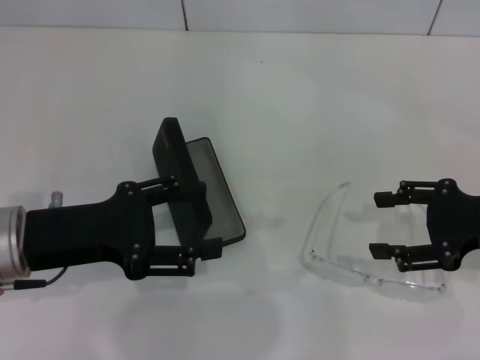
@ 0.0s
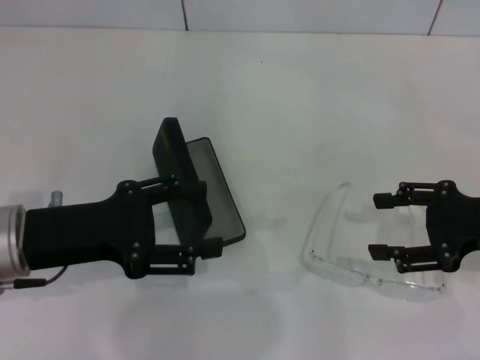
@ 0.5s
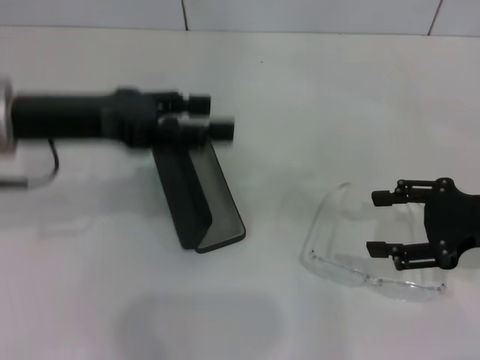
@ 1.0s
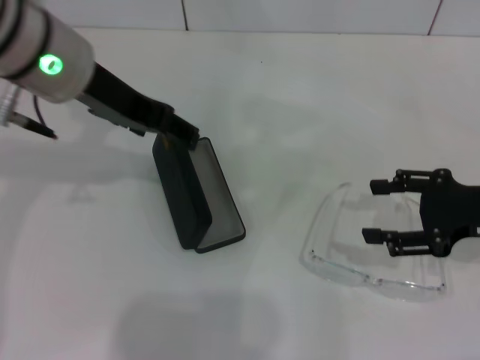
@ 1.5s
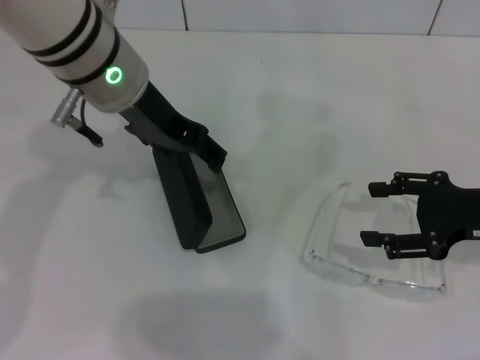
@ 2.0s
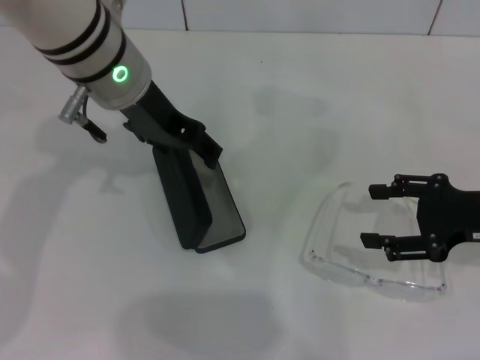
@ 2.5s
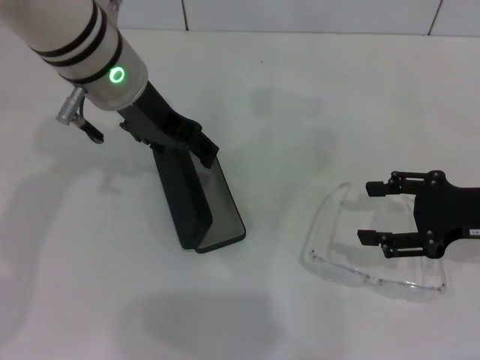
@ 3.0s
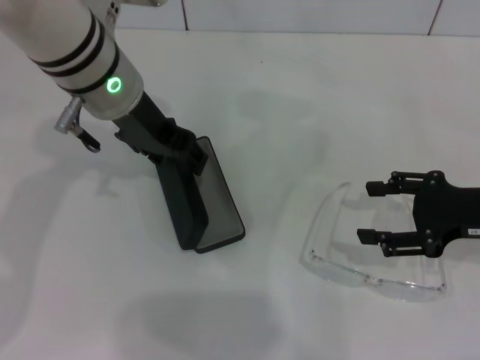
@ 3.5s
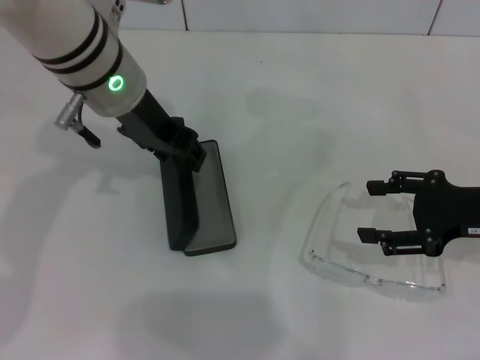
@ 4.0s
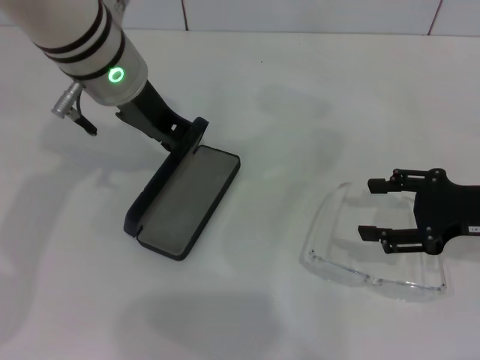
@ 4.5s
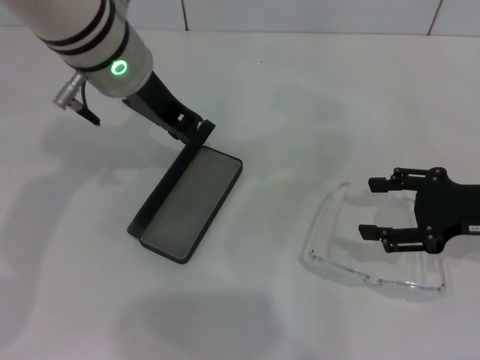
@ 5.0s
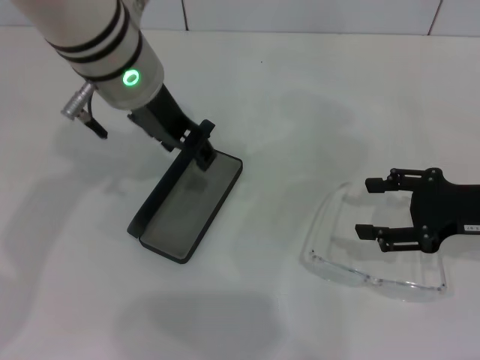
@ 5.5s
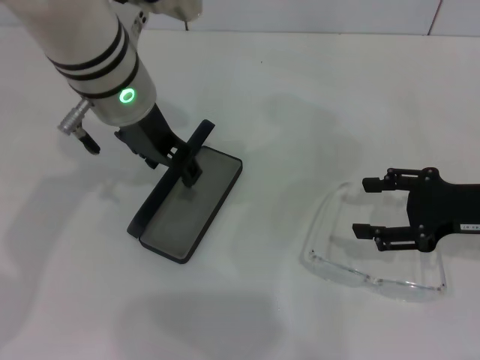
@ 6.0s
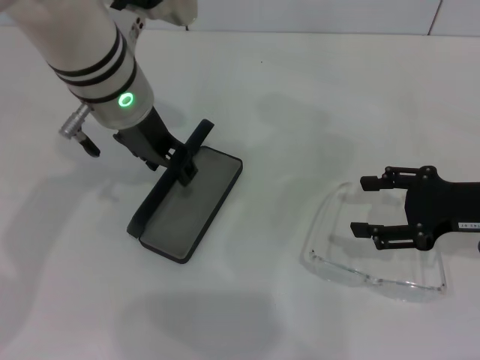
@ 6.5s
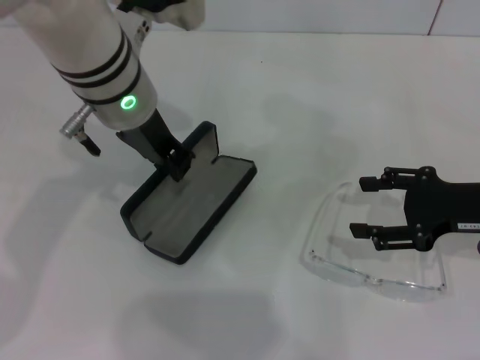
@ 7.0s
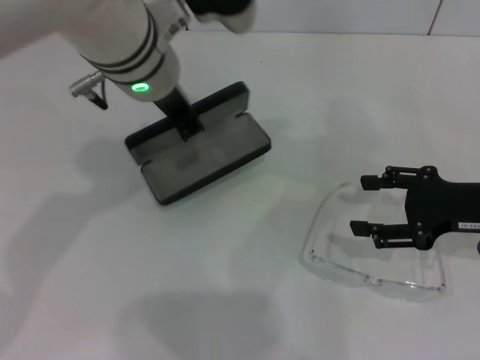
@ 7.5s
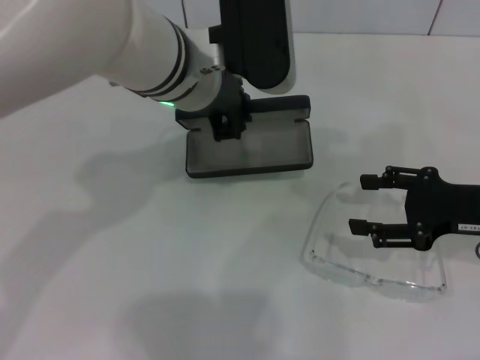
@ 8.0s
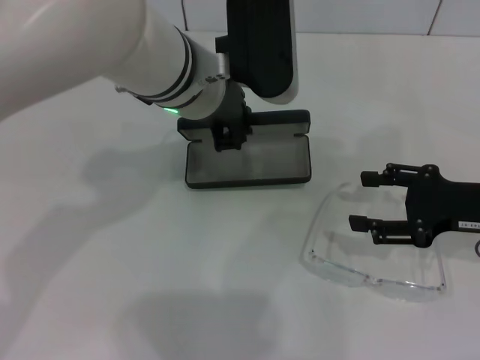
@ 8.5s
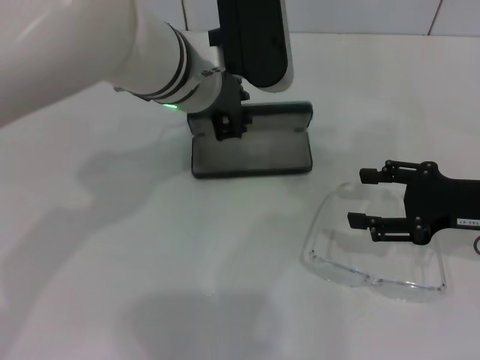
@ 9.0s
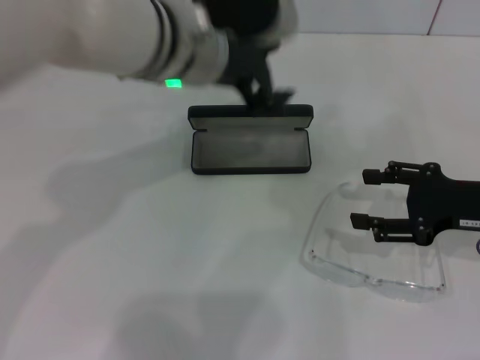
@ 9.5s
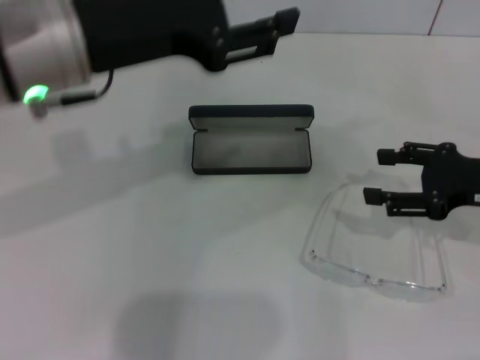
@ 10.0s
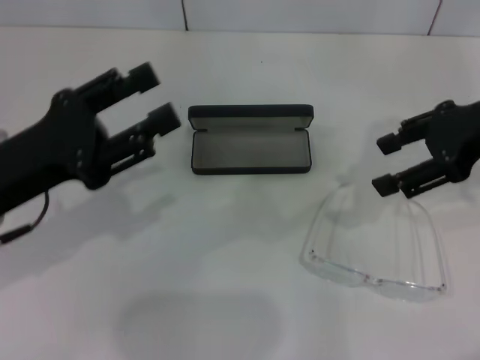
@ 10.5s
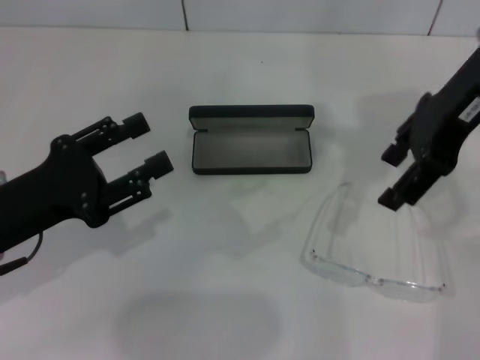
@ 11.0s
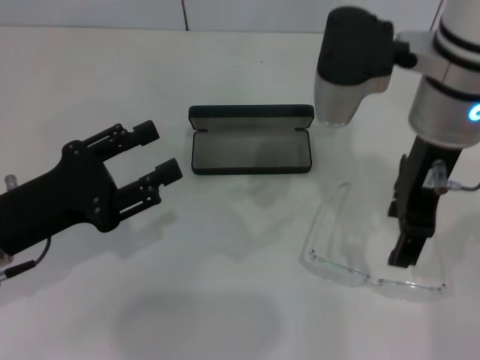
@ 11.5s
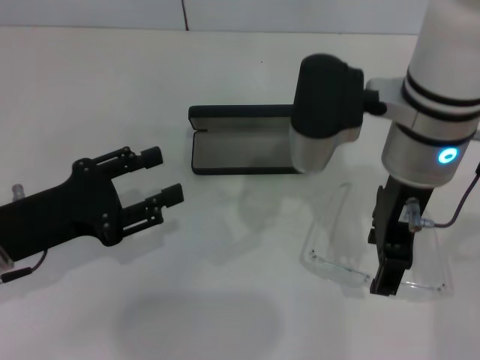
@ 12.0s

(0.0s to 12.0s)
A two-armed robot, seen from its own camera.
Step, 0.0s - 4.0s: Grab the glasses case with your left hand.
Step, 4.5s - 9.0s: Place the glasses case in the center of the table with your left hand.
0.0s - 2.0s: The left gripper travels forward, to the right and upward by some 20 cm.
2.0s - 4.0s: The grippers stay close to where they were, moving slightly.
4.0s - 6.0s: The left gripper closes, then opens again.
6.0s - 8.0s: The left gripper closes.
8.0s - 10.0s: The left gripper is displaced to the left and backward by about 10 cm, and opens up.
10.0s - 12.0s: The right gripper heads to the left and upward, covering about 20 cm. The left gripper moves downward, to the left and backward, some 20 cm.

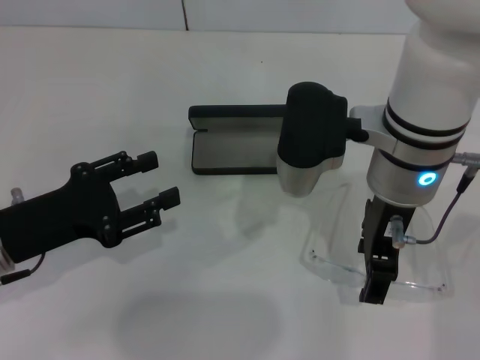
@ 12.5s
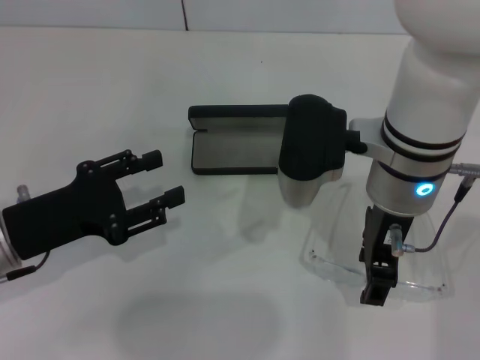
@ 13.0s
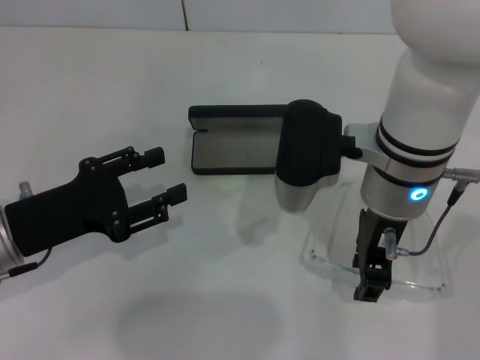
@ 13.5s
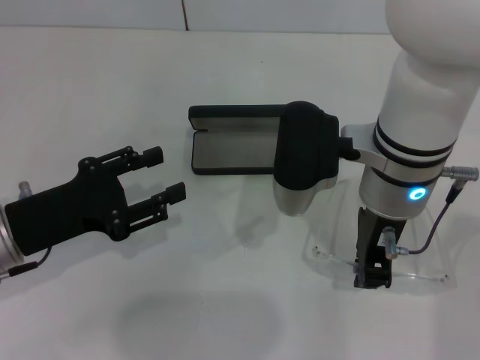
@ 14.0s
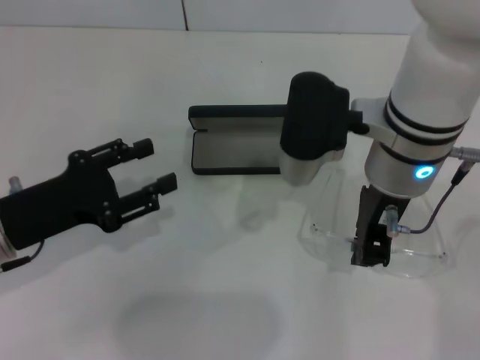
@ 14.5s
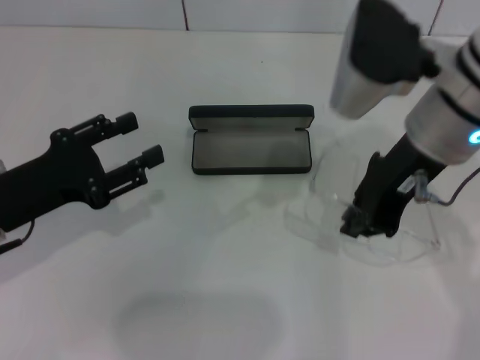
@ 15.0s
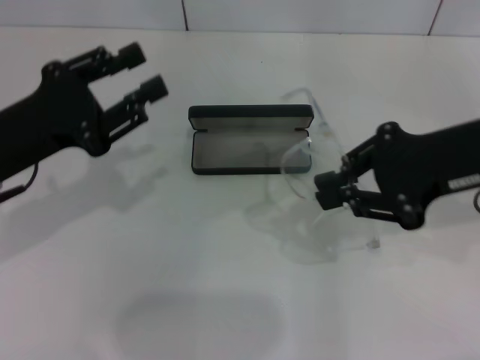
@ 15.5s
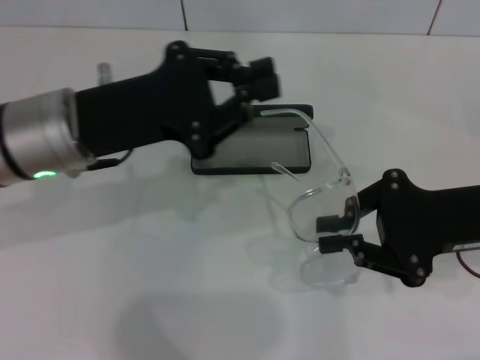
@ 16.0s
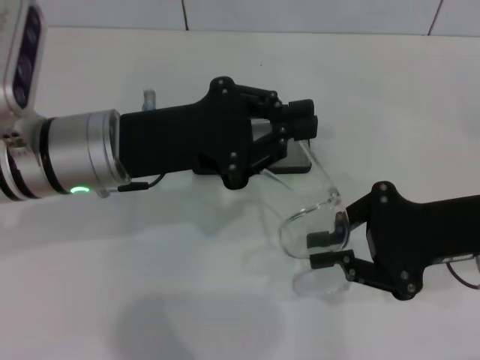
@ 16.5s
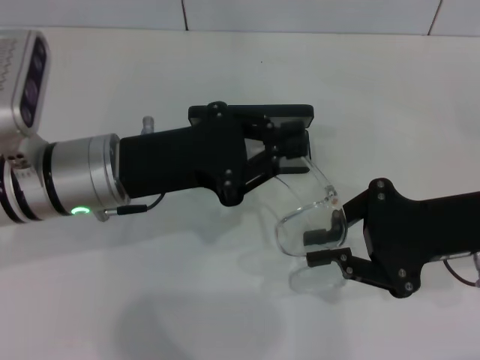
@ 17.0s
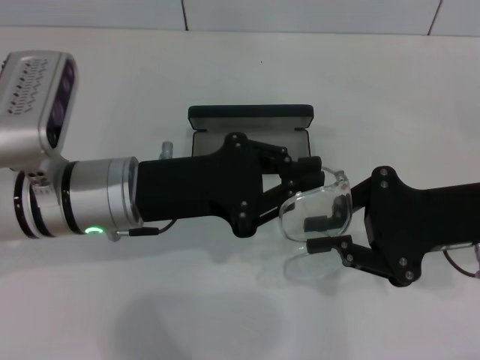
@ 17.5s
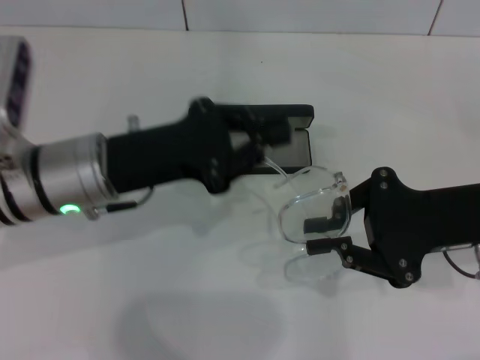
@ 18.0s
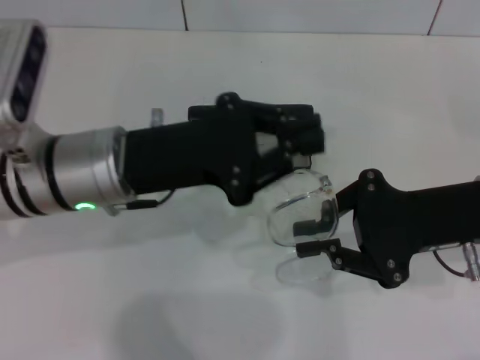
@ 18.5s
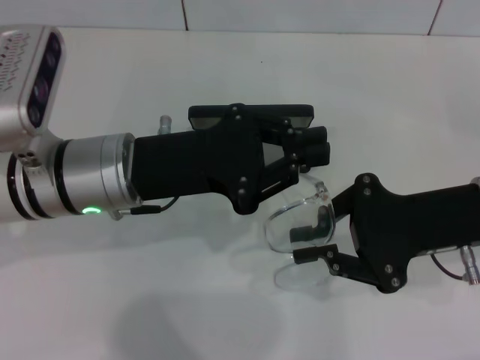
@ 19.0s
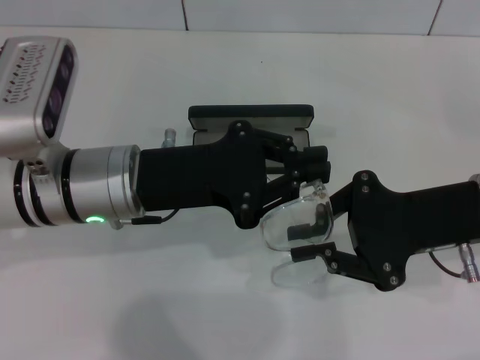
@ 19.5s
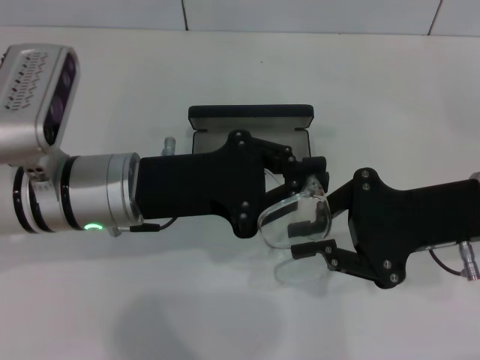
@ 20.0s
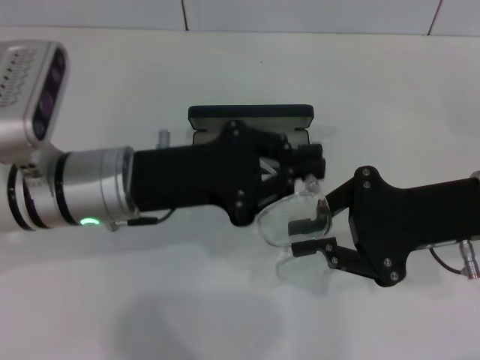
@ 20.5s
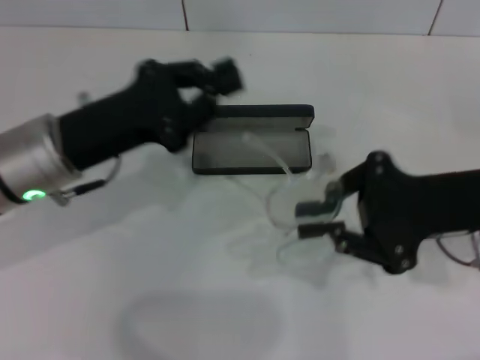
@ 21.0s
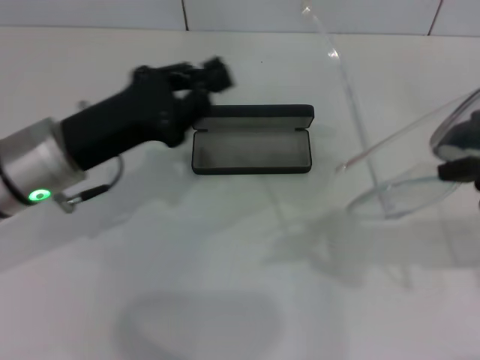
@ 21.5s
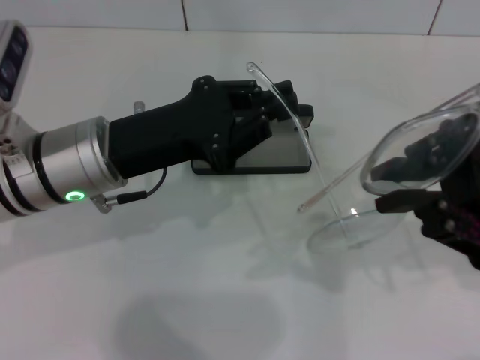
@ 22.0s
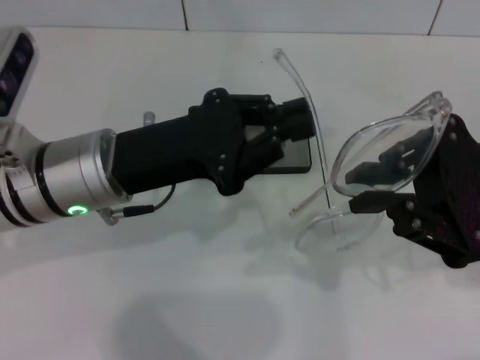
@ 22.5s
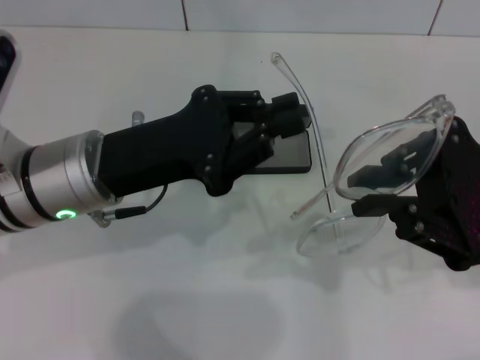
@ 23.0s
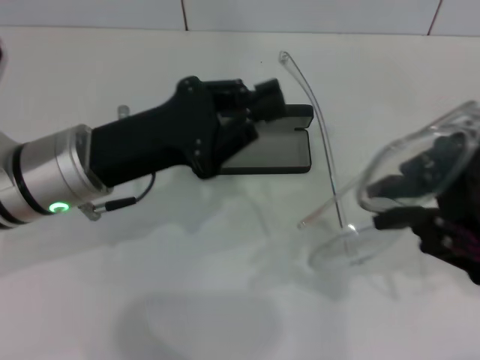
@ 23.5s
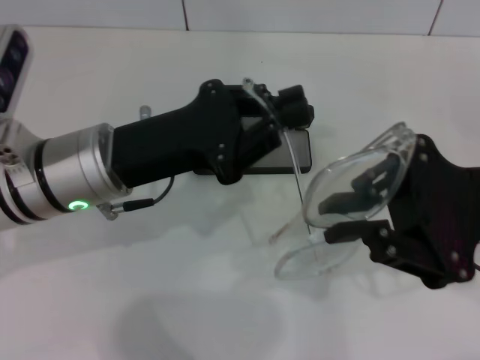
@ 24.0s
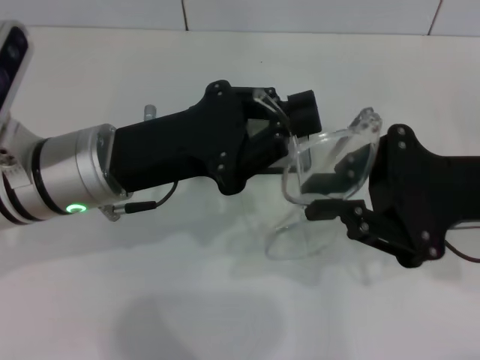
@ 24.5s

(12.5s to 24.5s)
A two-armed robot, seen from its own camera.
12.5s - 14.5s: The right gripper closes its fingers.
14.5s - 16.5s: The right gripper shifts approximately 15 cm to the right. Meanwhile the left gripper is displaced to the right, upward and forward by about 15 cm, and closes its fingers.
16.5s - 20.5s: The grippers move only a little.
22.5s - 24.5s: The grippers stay close to where they were, moving slightly.

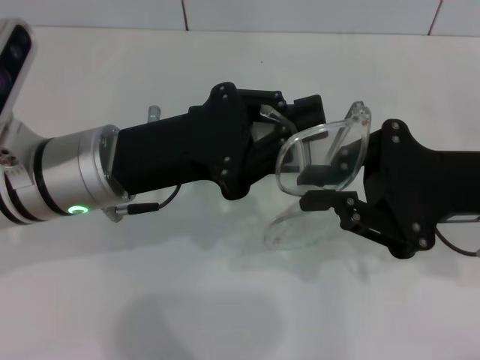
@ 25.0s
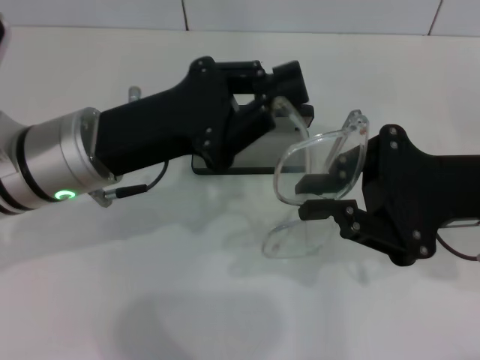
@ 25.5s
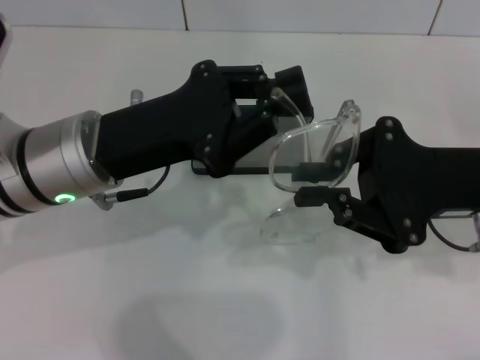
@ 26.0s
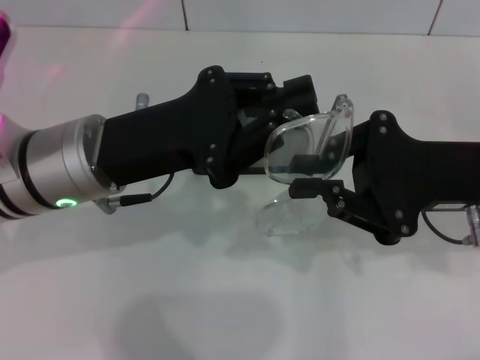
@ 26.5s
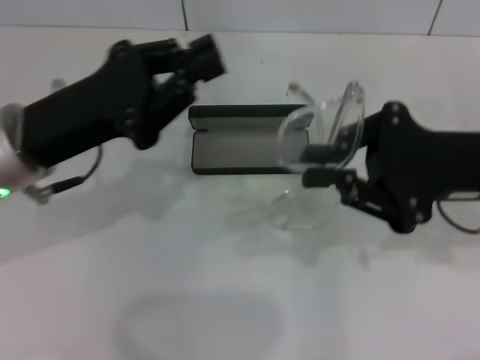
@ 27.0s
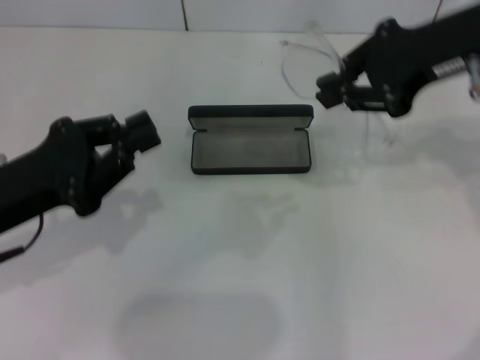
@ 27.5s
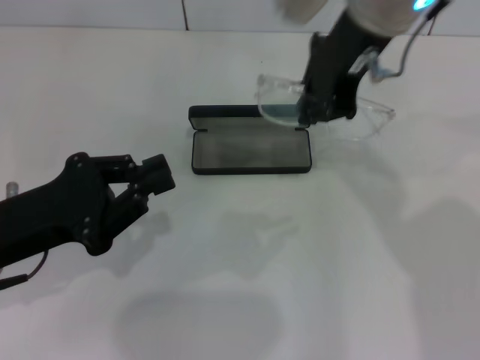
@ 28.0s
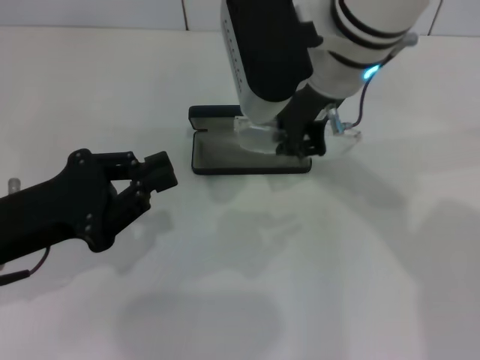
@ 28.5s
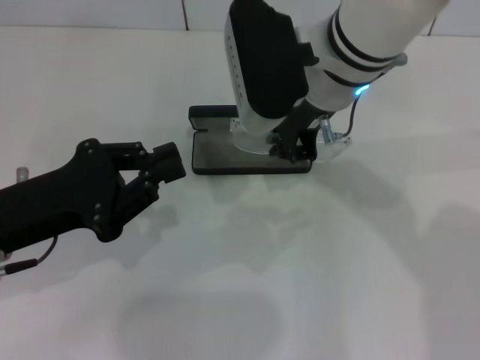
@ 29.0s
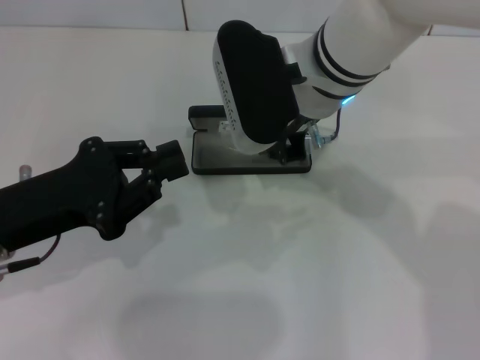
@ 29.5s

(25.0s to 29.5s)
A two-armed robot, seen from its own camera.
25.0s - 27.0s: The left gripper goes about 5 cm to the left.
27.0s - 29.5s: The right gripper is displaced to the left and forward by some 20 cm. Meanwhile the left gripper ends up some 5 cm from where it was.
